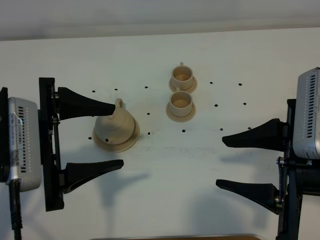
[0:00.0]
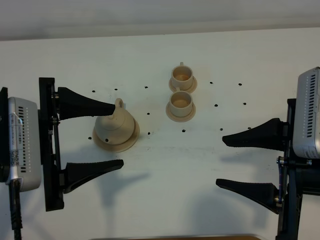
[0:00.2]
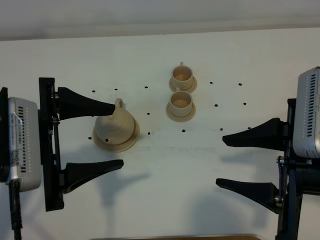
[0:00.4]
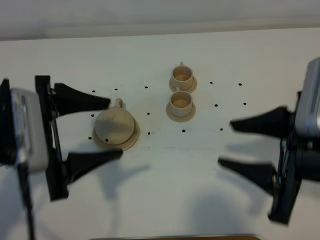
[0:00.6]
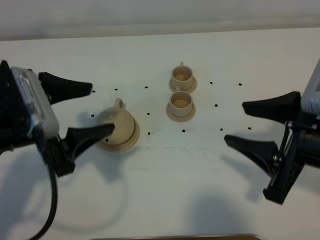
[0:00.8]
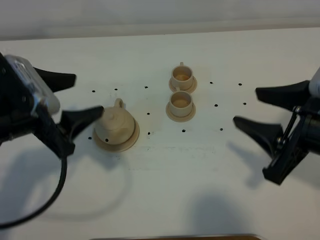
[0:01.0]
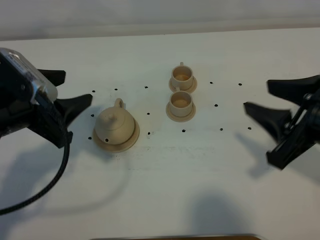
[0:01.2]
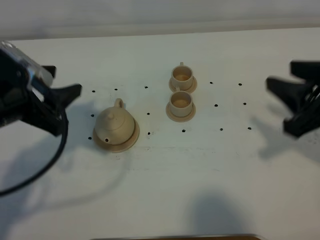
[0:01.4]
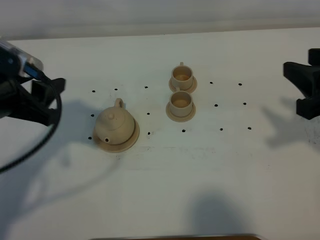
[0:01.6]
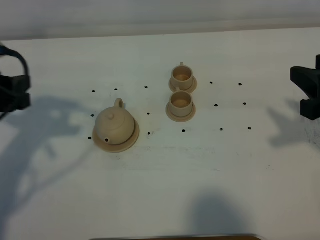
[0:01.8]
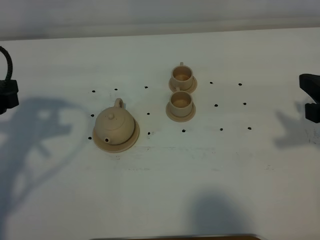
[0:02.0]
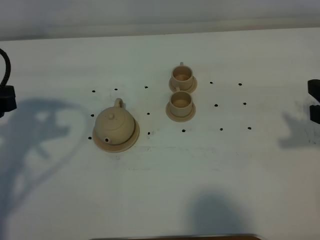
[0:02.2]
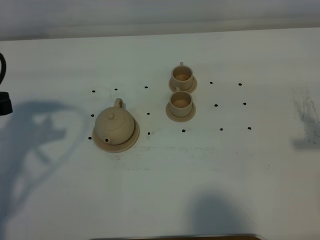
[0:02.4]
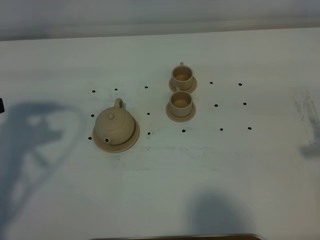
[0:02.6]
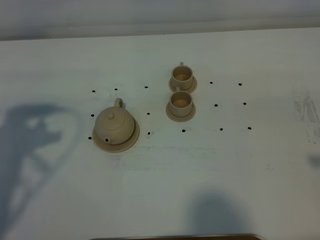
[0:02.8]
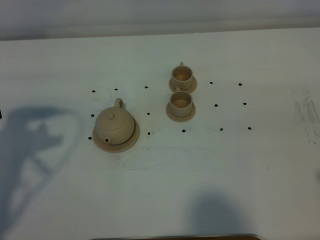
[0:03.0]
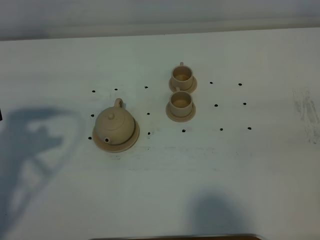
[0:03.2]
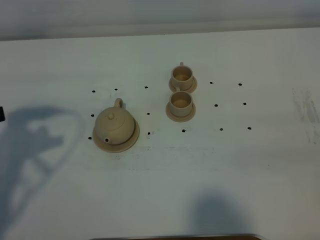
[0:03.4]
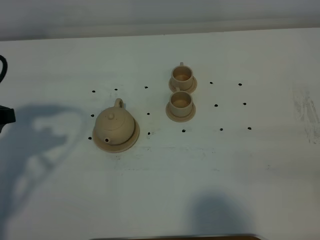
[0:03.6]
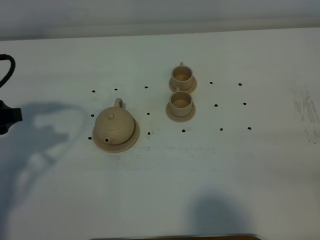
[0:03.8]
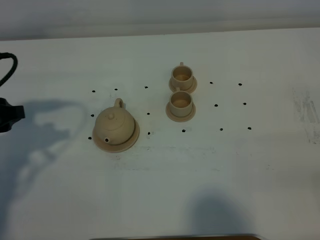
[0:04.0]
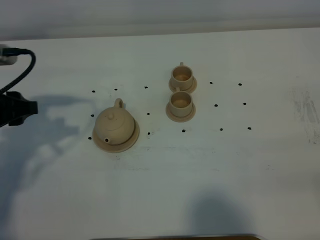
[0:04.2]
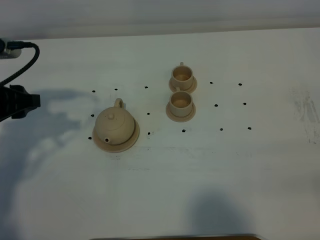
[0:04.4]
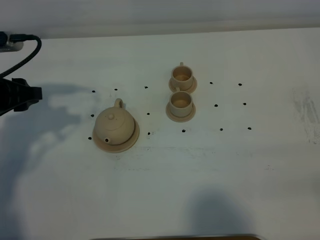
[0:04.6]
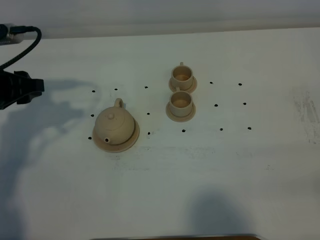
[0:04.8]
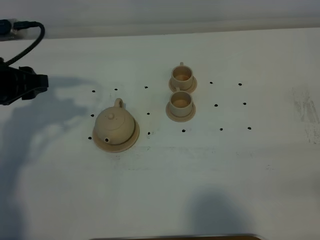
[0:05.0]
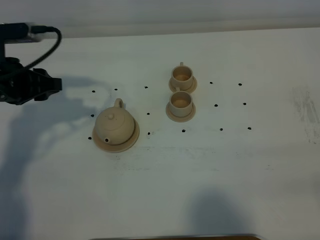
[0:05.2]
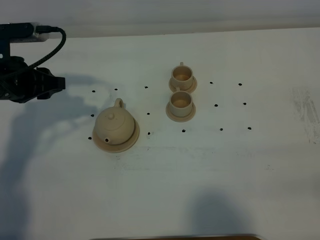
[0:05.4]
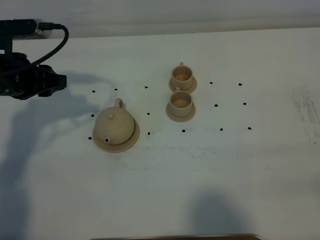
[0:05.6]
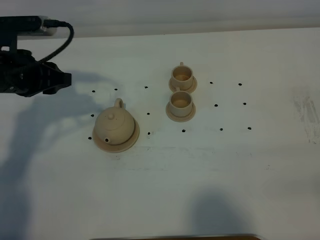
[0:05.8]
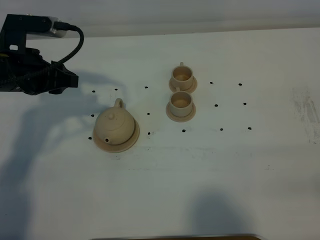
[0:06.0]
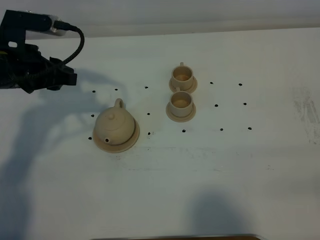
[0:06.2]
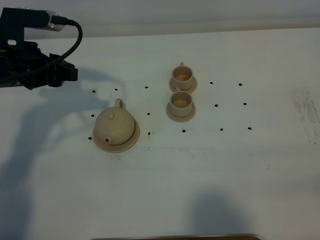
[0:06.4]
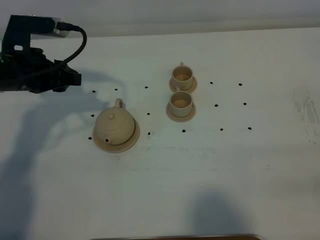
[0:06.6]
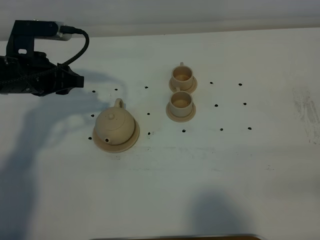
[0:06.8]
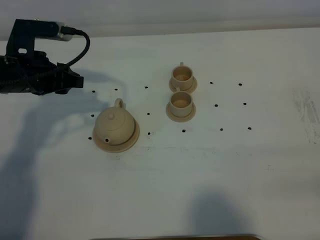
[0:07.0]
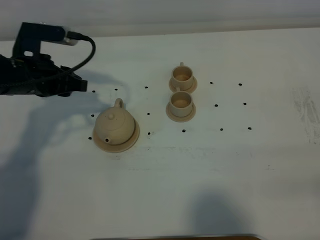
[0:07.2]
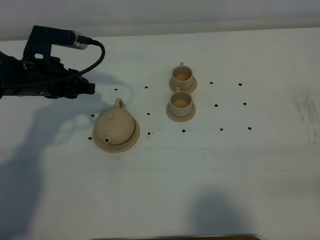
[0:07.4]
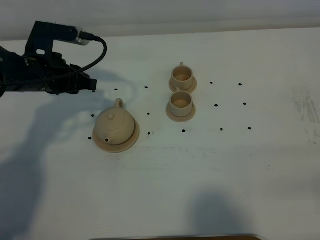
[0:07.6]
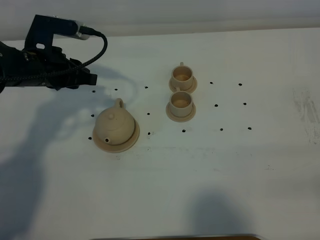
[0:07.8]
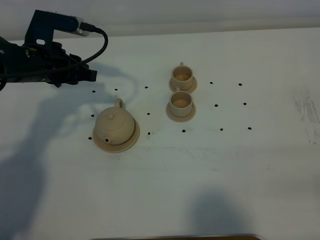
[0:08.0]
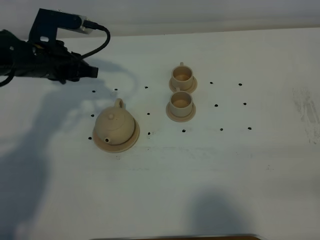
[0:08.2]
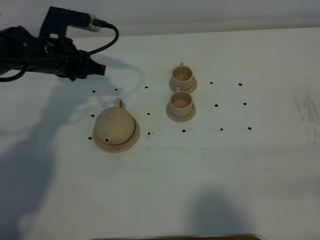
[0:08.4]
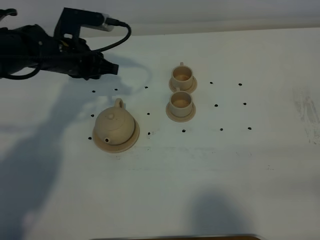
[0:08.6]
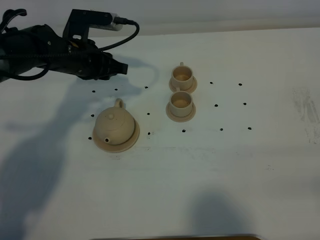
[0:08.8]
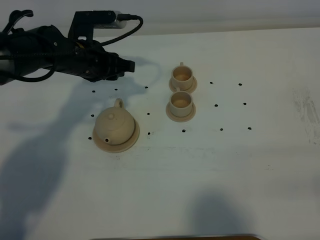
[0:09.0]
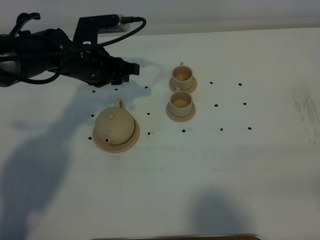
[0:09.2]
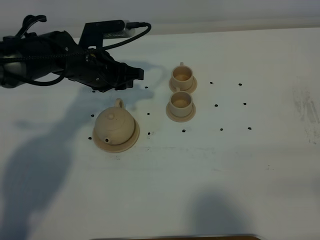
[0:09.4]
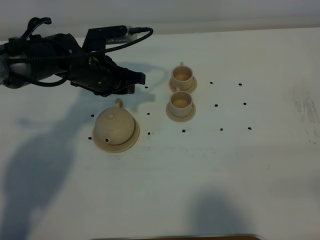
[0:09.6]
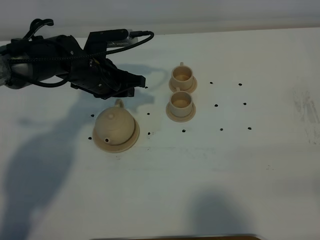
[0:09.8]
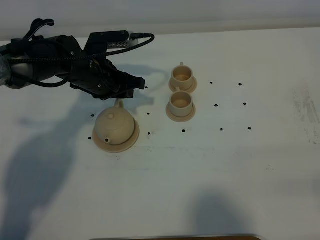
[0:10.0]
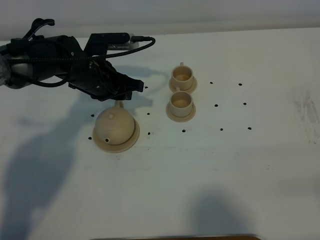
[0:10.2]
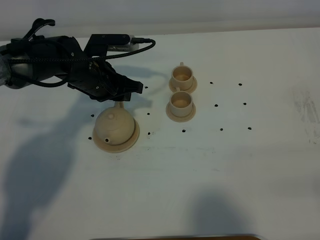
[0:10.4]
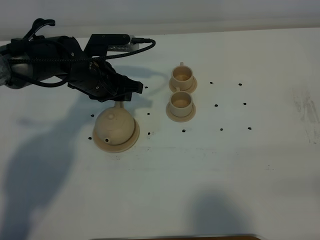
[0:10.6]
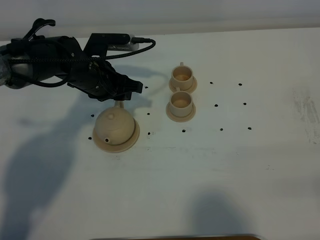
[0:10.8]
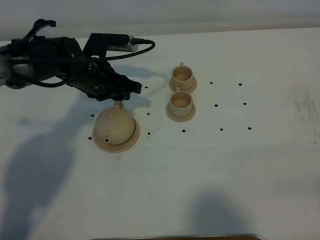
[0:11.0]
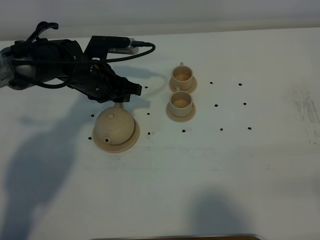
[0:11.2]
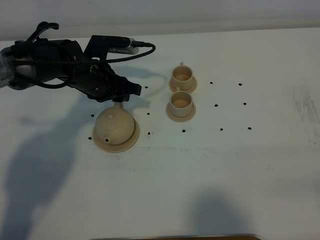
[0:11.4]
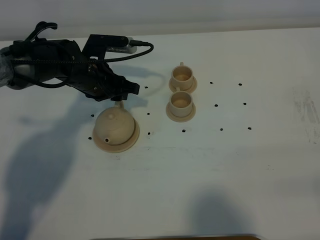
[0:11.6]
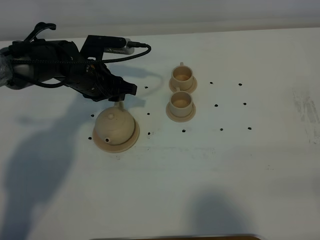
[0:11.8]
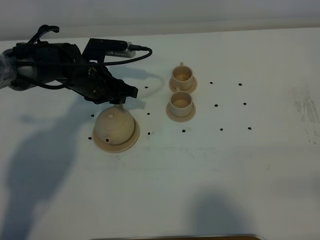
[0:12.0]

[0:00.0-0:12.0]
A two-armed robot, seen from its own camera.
Task of the whole recording: grasp the brown teapot and pour the tea into the two brown teacups one by one, put the brown teapot back in its original place.
0:00.0 to 0:01.6: The right gripper heads to the right and forward, covering approximately 10 cm, while the left gripper is displaced to the left and forward by some 10 cm.
0:01.6 to 0:03.0: The right gripper moves backward, approximately 10 cm, while the left gripper travels to the left by approximately 5 cm.
0:03.0 to 0:04.4: The left gripper heads forward, covering roughly 5 cm.
0:04.4 to 0:06.0: The left gripper heads forward, covering some 5 cm.
0:06.0 to 0:07.6: The left gripper shifts by roughly 5 cm.
0:07.6 to 0:09.0: The left gripper goes approximately 5 cm to the right.
0:09.0 to 0:12.0: The grippers stay close to where they were, moving slightly.

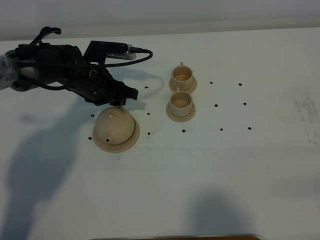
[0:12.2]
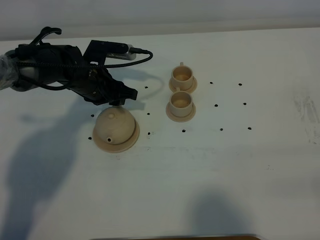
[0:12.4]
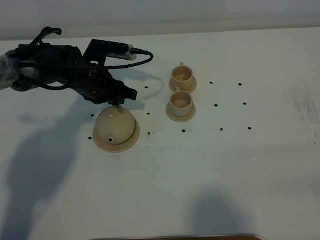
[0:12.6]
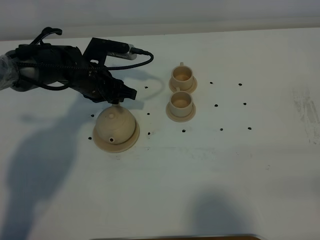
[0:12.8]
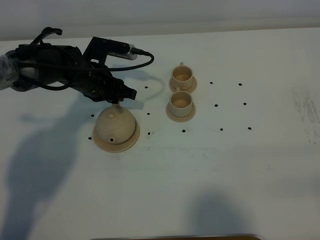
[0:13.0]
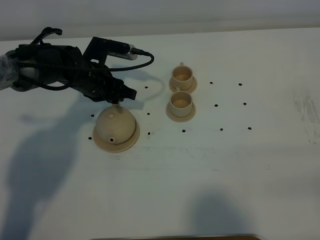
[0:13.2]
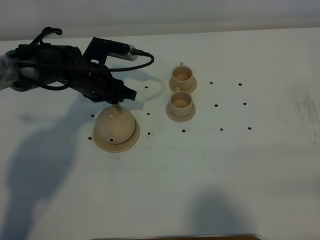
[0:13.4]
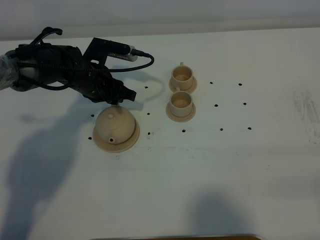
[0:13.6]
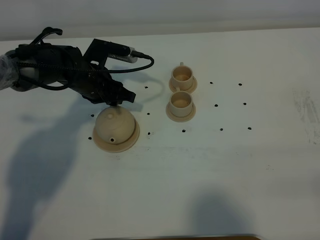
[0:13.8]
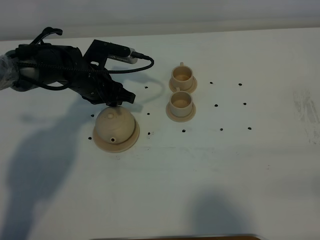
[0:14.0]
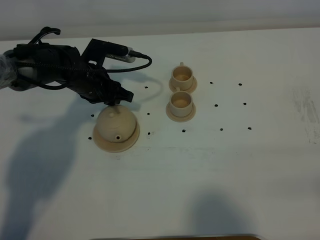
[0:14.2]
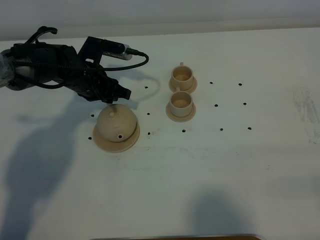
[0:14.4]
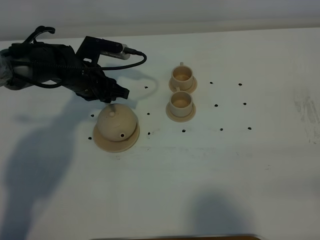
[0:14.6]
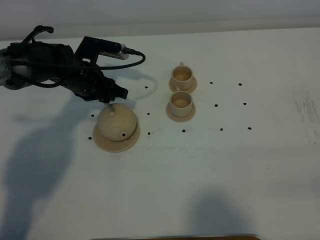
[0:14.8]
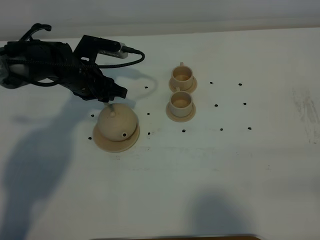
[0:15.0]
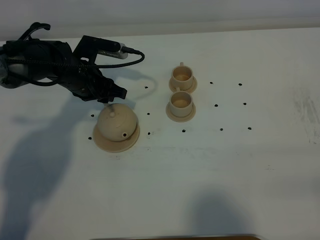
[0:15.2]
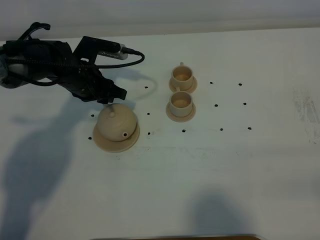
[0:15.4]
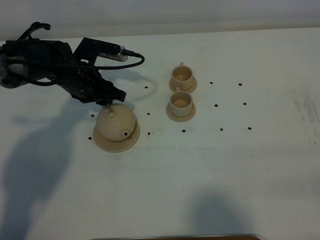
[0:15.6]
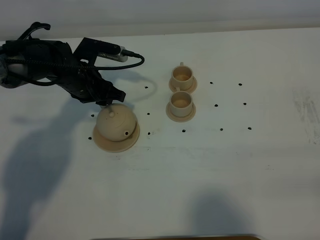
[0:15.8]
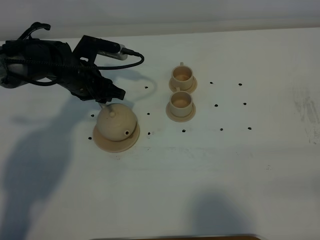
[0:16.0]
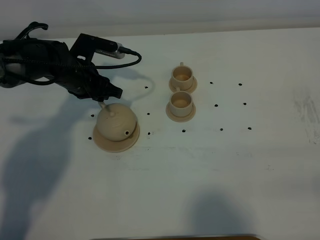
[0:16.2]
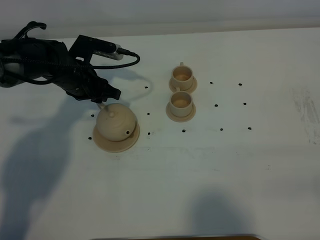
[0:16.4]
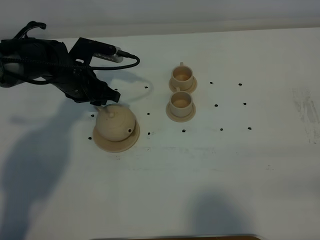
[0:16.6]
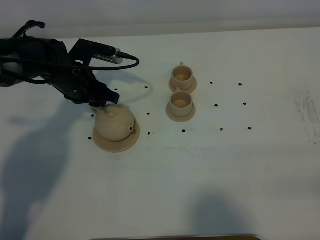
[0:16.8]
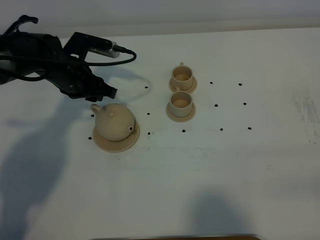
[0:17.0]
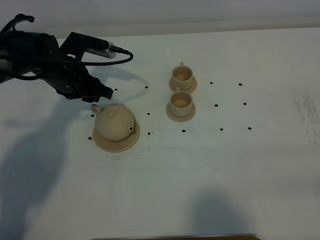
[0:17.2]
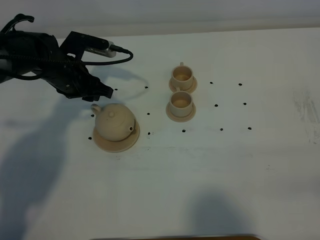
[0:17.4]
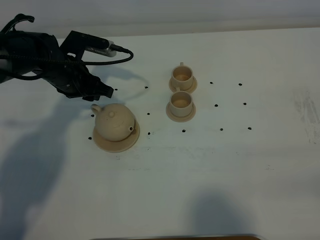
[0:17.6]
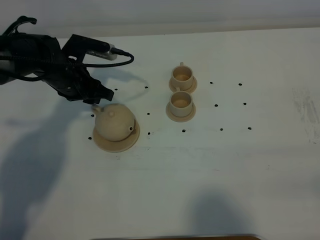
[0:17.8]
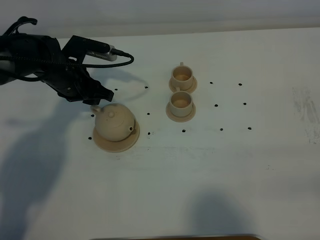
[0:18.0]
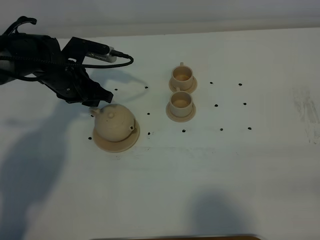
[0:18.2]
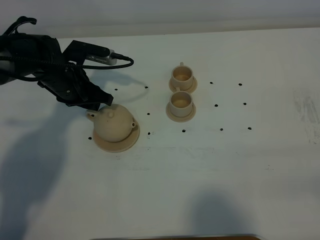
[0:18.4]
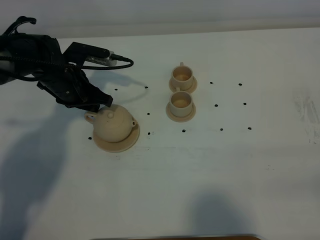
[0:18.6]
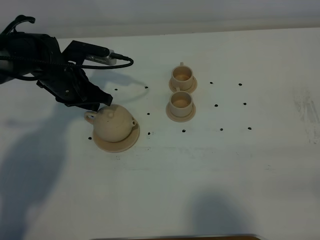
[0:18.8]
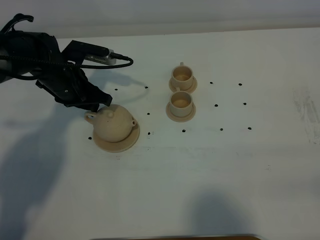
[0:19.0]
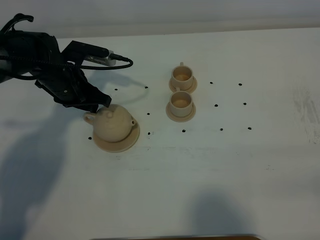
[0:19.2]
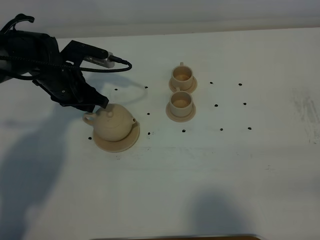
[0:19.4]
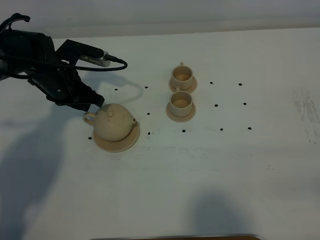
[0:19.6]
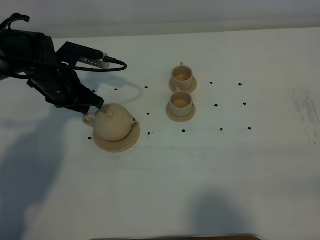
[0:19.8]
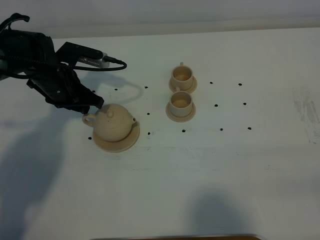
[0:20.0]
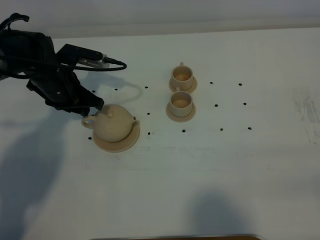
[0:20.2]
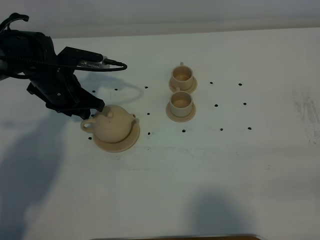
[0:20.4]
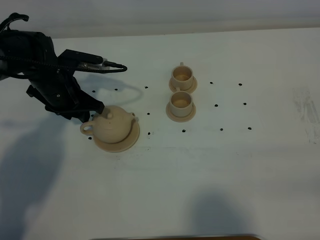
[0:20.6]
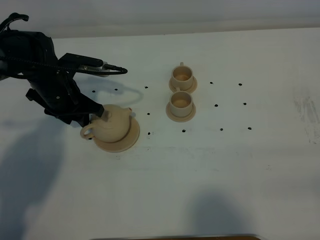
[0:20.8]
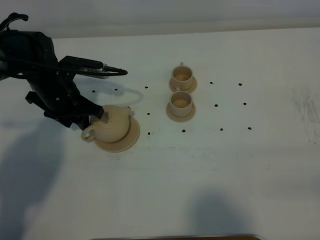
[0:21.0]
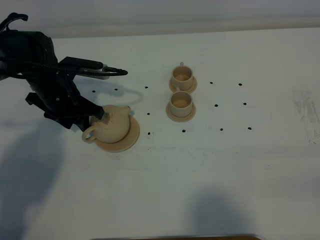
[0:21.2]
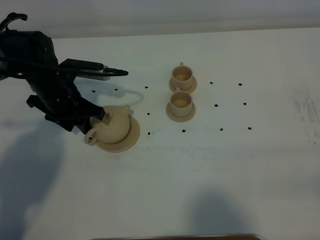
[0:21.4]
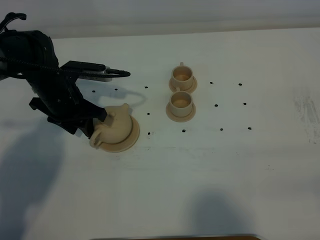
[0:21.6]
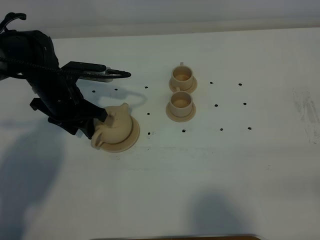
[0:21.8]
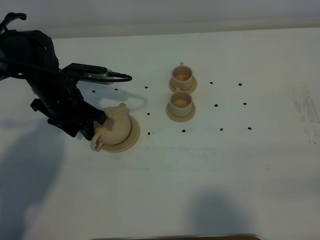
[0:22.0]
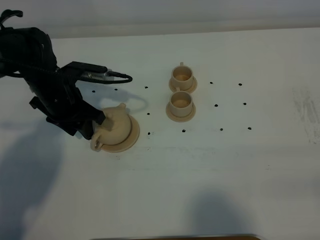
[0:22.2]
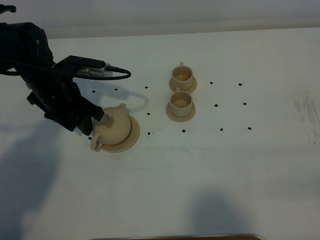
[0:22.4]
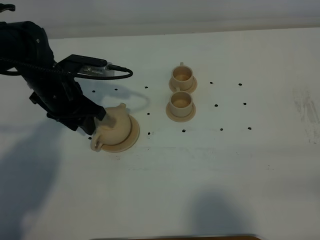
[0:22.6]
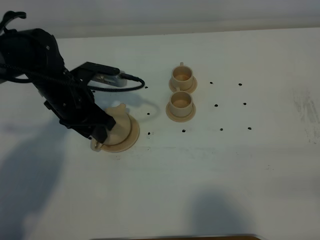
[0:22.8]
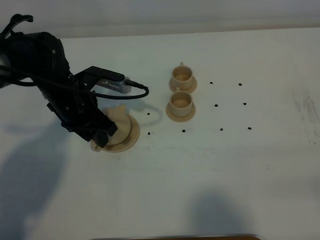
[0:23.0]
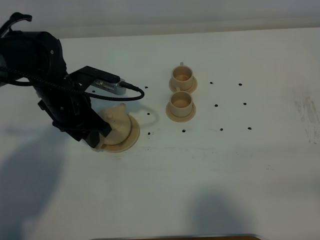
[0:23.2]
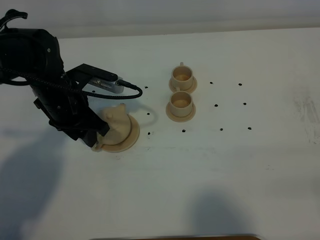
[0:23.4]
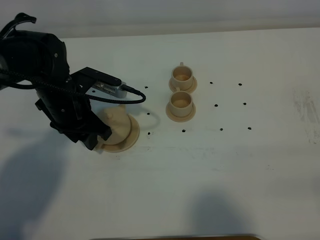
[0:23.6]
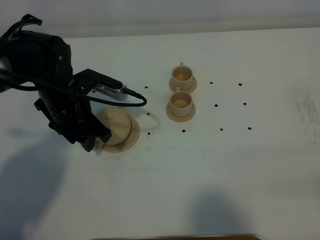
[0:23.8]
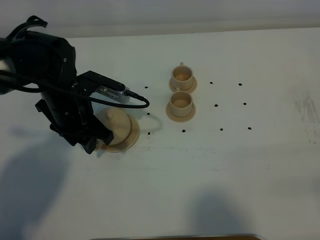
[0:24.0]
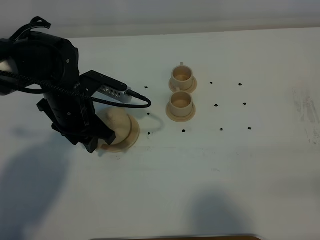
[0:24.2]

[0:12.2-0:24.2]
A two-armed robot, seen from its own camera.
Task of the whole recording: grasp the brown teapot and pour the tea into the two brown teacups one by one, put the brown teapot back in its original place.
0:12.2 to 0:15.2: There are only small adjustments of the grippers.
0:15.2 to 0:16.6: Both grippers stay put.
0:16.6 to 0:19.8: There are only small adjustments of the grippers.
0:19.8 to 0:22.6: There are only small adjustments of the grippers.
0:22.6 to 0:24.2: The grippers move only a little.
